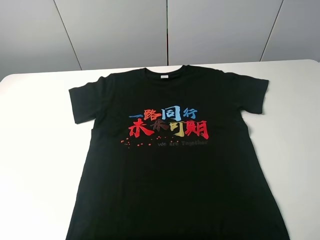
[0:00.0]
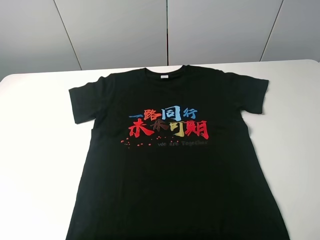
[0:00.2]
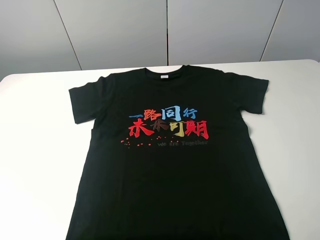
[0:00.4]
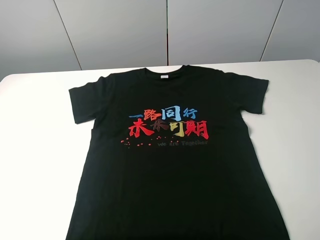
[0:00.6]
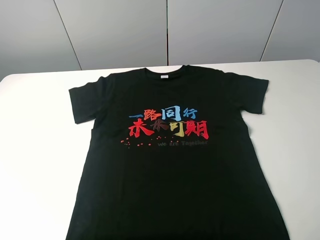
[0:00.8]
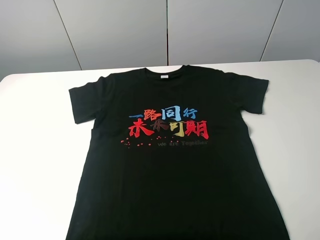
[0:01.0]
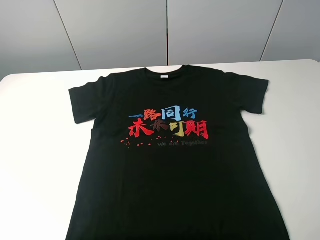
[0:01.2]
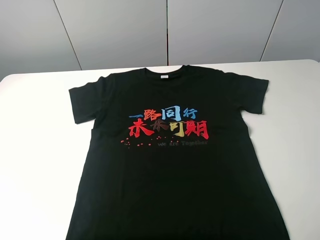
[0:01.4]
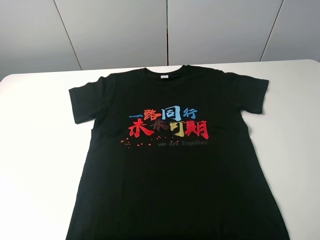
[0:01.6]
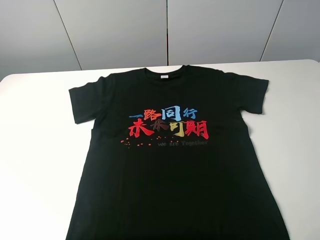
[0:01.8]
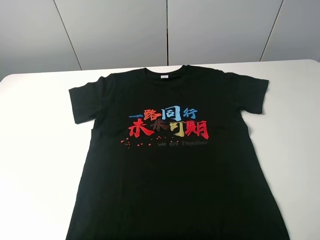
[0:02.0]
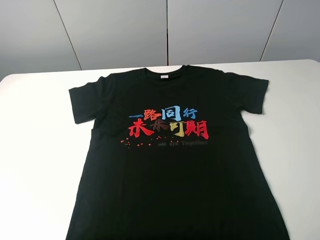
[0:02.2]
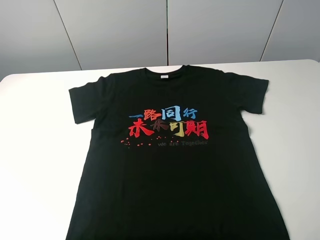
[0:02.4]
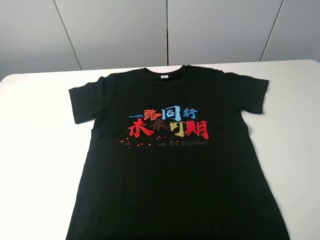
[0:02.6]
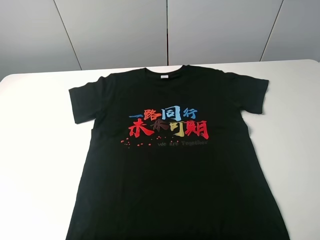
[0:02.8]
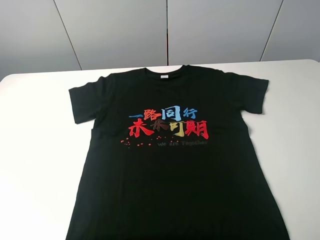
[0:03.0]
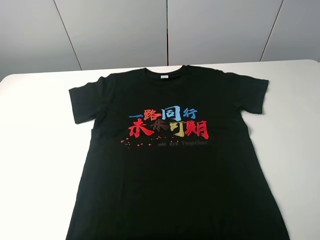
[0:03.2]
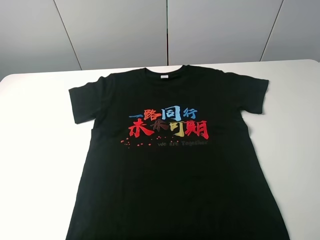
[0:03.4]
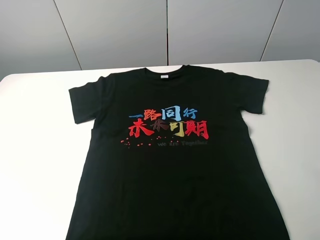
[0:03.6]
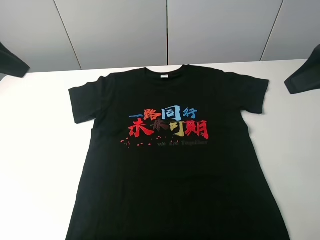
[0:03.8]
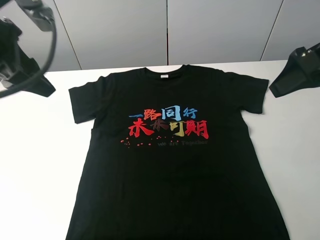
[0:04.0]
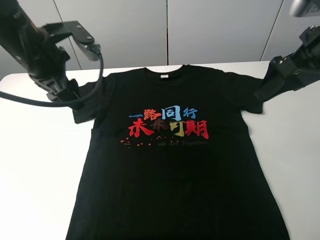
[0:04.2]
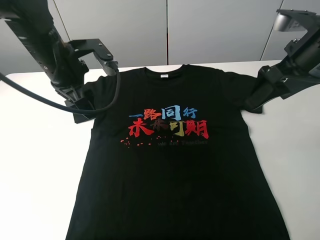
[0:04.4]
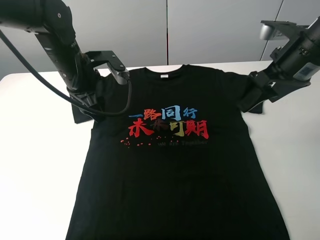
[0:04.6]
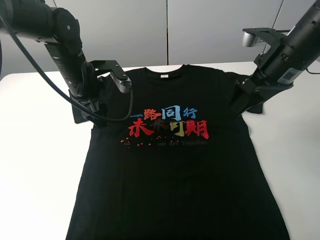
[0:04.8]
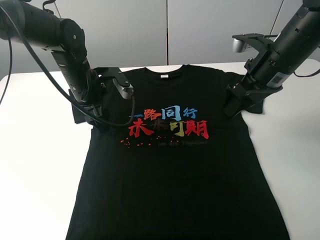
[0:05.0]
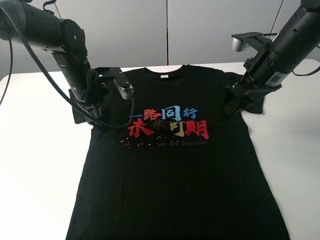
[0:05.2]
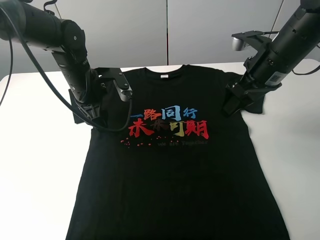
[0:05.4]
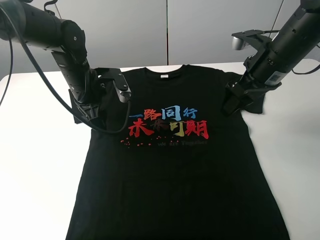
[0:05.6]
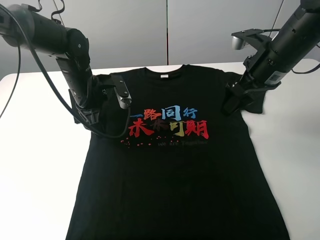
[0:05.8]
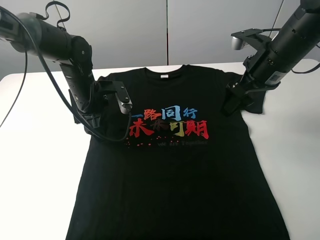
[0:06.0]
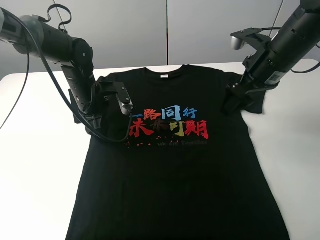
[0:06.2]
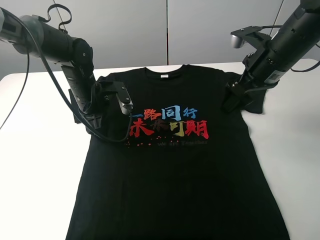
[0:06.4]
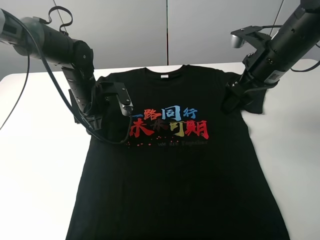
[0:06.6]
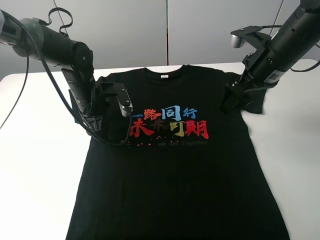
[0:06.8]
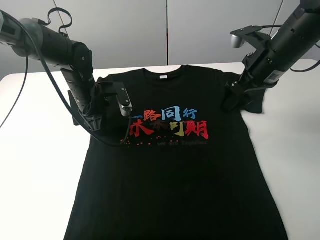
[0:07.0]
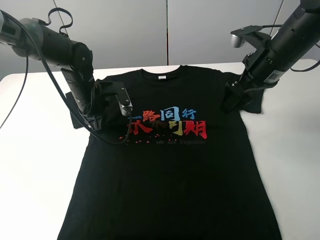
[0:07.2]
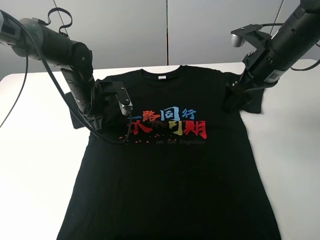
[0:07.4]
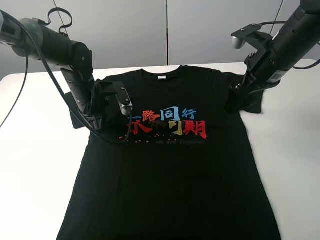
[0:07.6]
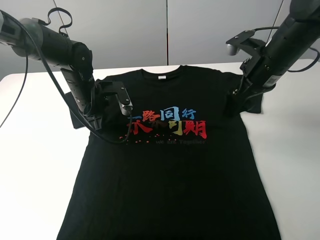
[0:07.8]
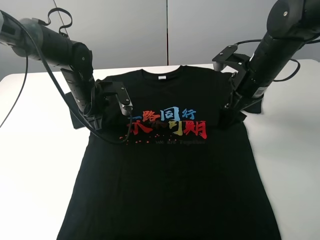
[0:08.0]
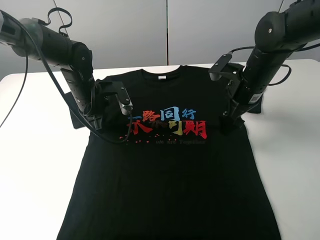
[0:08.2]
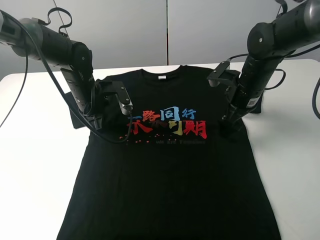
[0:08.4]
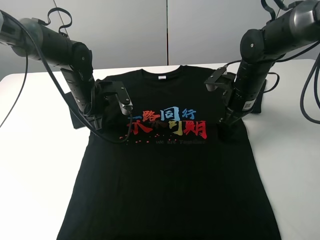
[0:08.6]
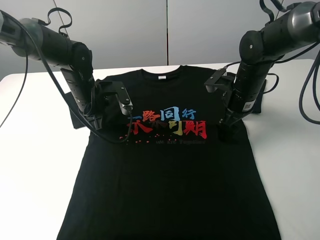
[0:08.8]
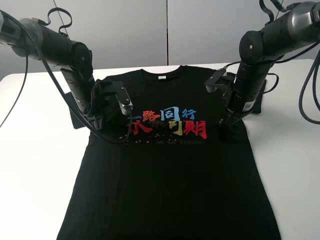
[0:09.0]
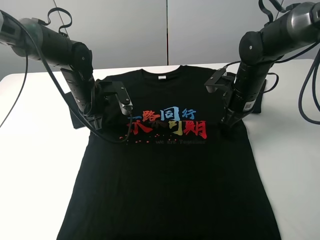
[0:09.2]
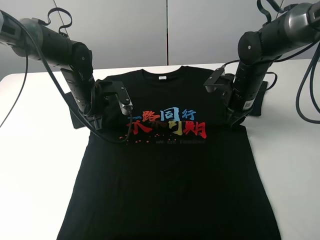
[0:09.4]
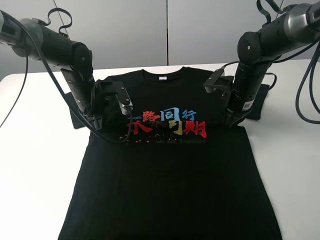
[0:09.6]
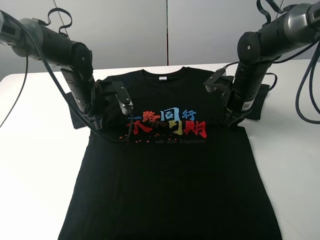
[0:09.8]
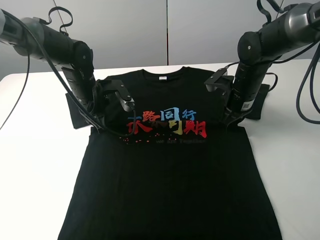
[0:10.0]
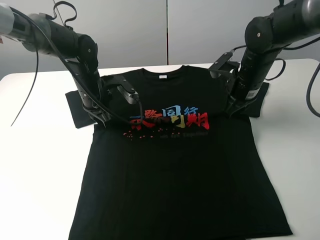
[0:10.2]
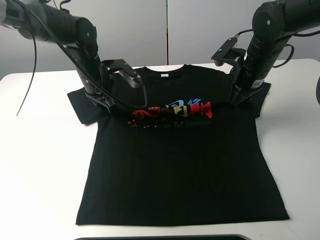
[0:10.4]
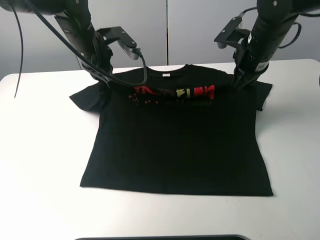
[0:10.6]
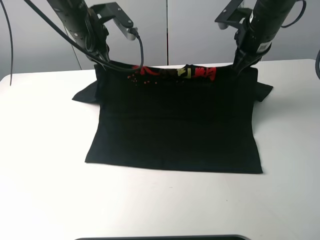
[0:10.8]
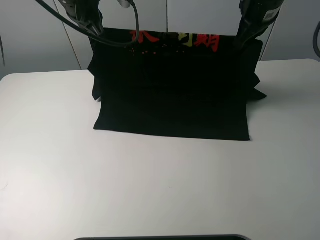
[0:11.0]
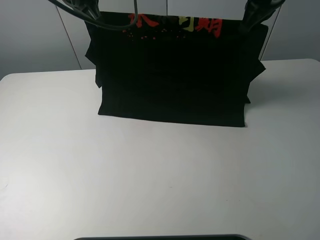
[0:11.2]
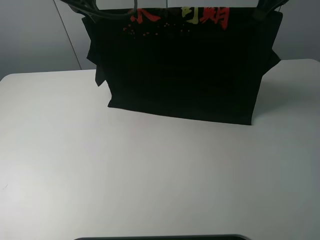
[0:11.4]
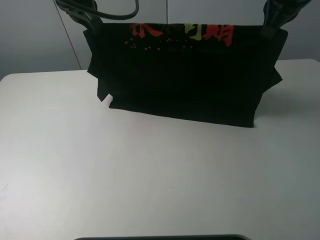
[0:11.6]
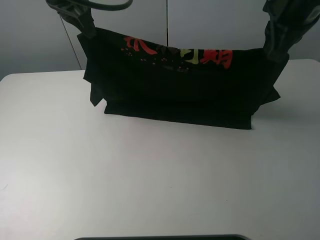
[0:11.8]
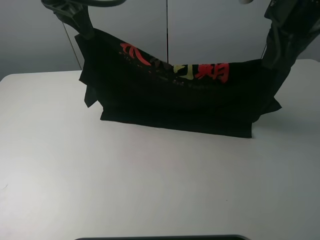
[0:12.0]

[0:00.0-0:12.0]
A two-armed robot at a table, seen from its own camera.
Task of the whole recording: fold the clothes on the table.
Step, 0.0 to 7.0 s: Lift the black T-shirt with the left gripper.
0.0 to 1.6 s: The two grippers keep their place.
3.0 to 4.4 s: The left gripper shifts some 35 cm forward, to the right and downward. The right gripper travels forward by roughly 25 cm.
4.4 to 6.0 s: The left gripper moves downward, some 10 cm; the right gripper changes place by about 5 cm.
6.0 to 7.6 s: The left gripper closes its fingers.
7.6 to 9.0 s: The right gripper moves downward, roughly 10 cm.
9.0 to 10.4 s: The two grippers go about 5 cm upward. The right gripper closes.
10.4 to 12.0 s: The left gripper heads upward, covering roughly 20 cm. The right gripper shifts some 20 cm upward and backward.

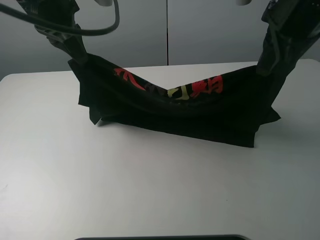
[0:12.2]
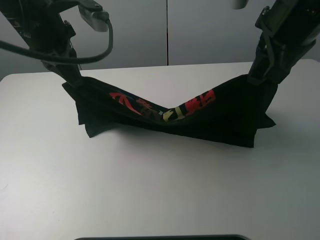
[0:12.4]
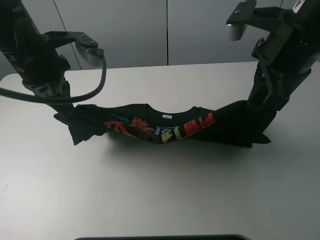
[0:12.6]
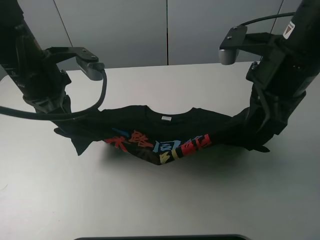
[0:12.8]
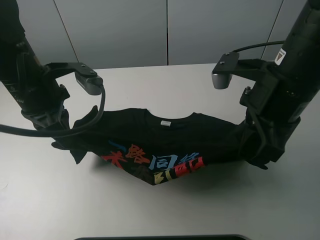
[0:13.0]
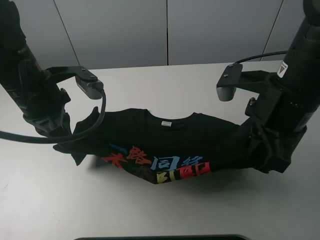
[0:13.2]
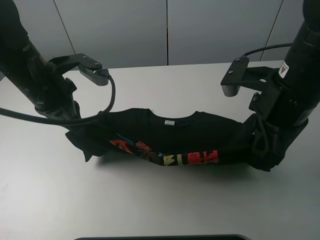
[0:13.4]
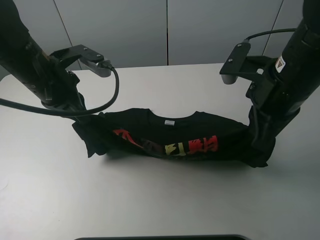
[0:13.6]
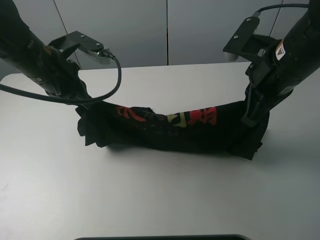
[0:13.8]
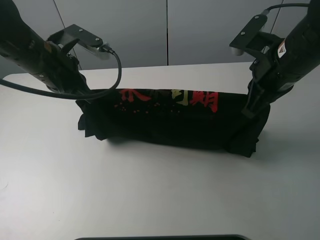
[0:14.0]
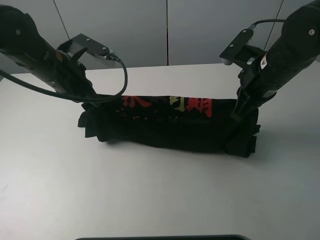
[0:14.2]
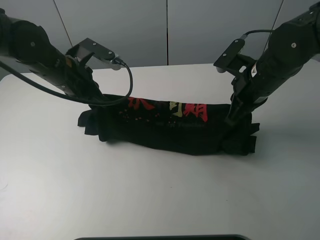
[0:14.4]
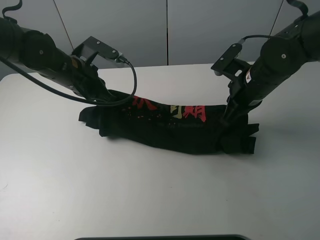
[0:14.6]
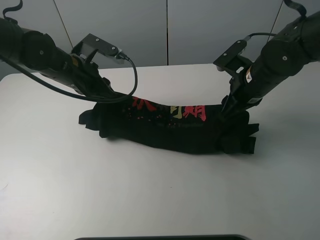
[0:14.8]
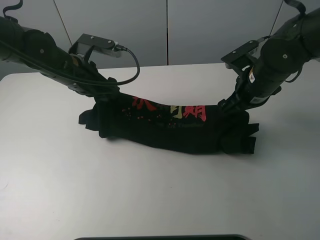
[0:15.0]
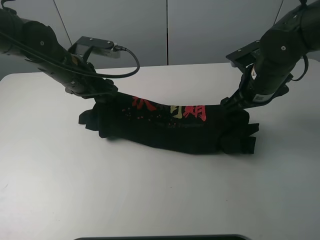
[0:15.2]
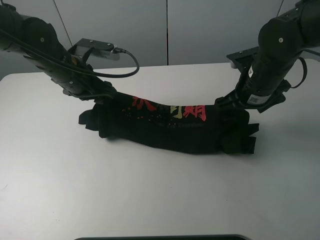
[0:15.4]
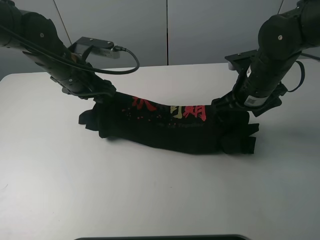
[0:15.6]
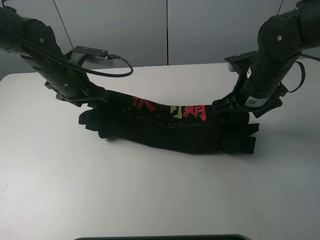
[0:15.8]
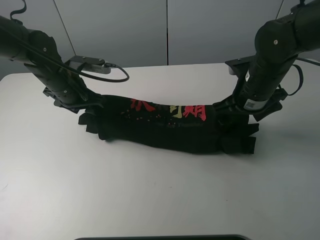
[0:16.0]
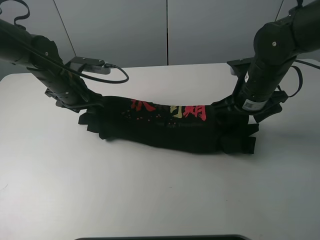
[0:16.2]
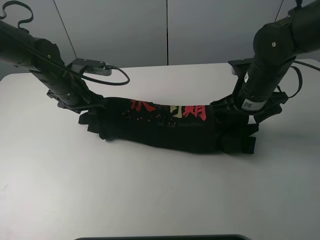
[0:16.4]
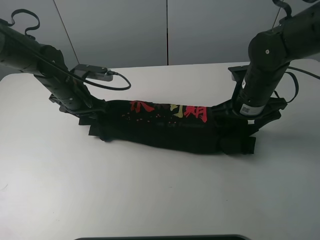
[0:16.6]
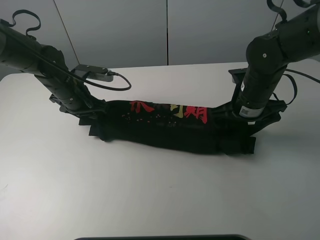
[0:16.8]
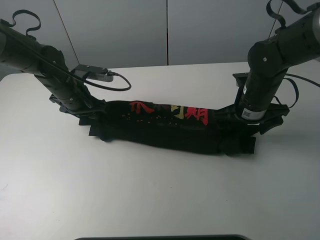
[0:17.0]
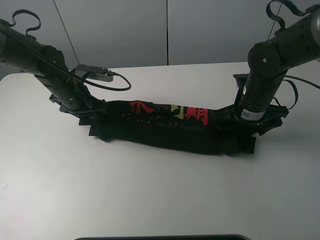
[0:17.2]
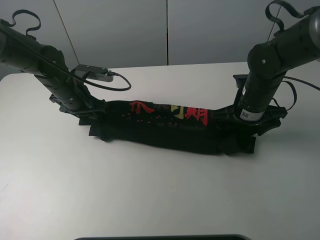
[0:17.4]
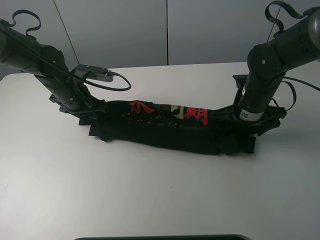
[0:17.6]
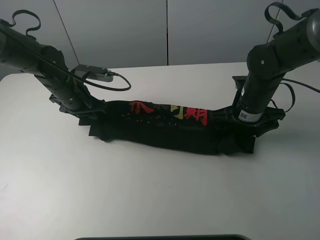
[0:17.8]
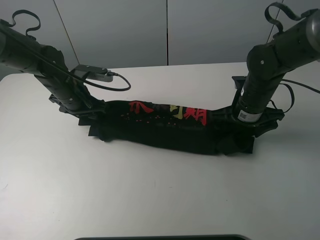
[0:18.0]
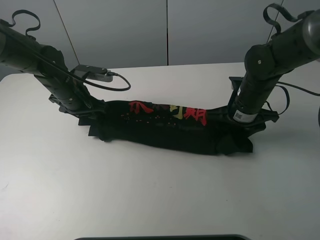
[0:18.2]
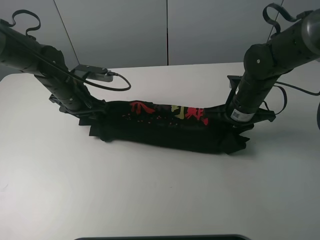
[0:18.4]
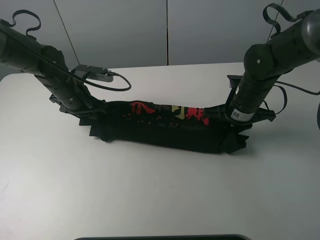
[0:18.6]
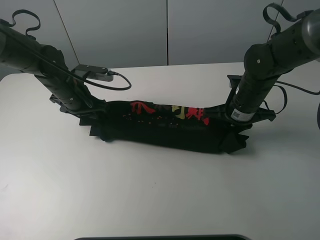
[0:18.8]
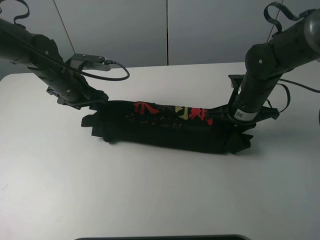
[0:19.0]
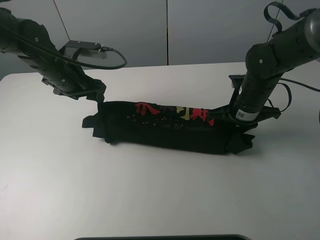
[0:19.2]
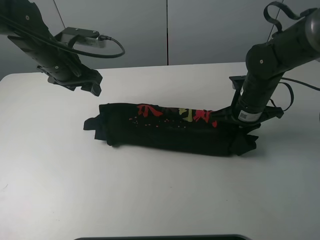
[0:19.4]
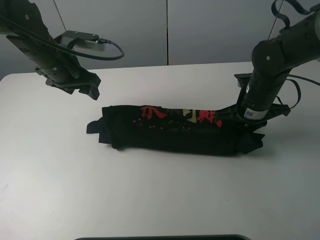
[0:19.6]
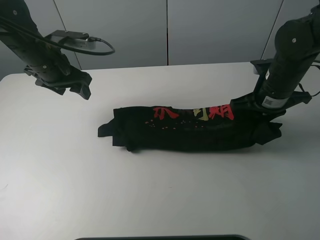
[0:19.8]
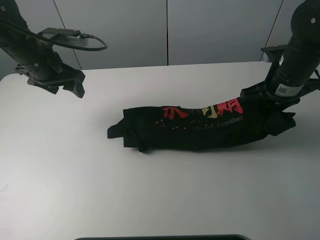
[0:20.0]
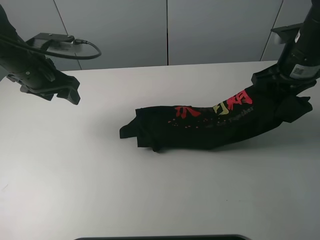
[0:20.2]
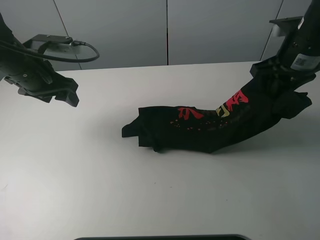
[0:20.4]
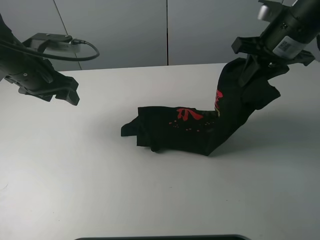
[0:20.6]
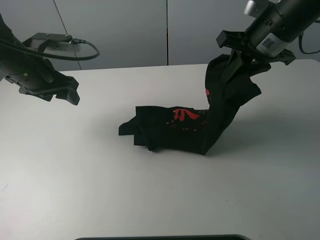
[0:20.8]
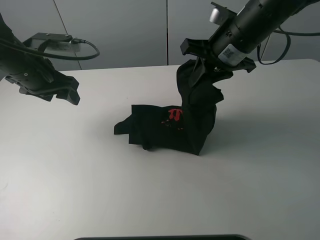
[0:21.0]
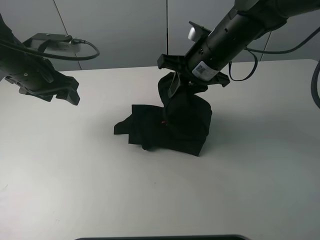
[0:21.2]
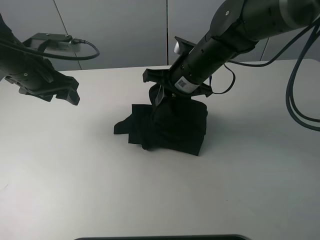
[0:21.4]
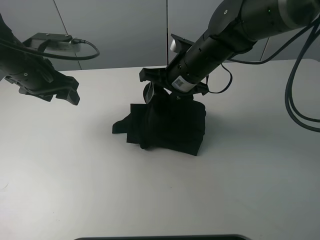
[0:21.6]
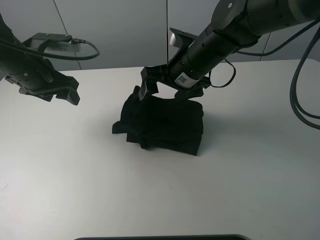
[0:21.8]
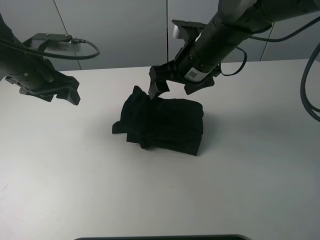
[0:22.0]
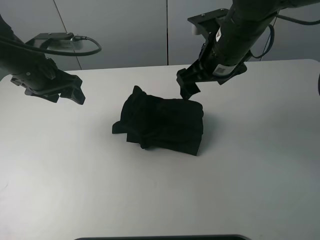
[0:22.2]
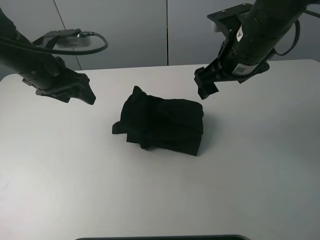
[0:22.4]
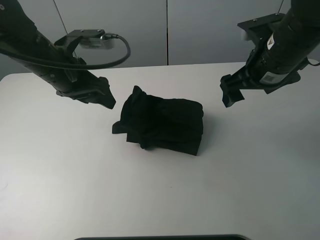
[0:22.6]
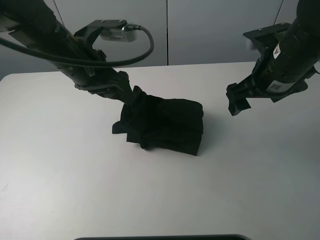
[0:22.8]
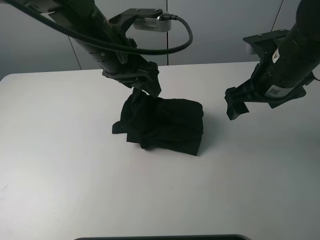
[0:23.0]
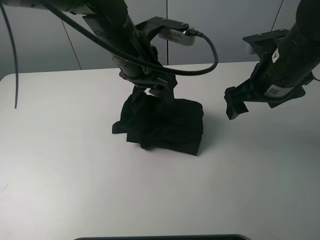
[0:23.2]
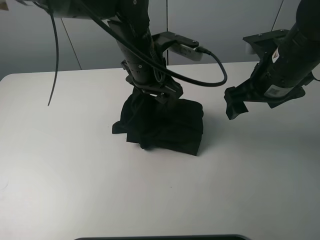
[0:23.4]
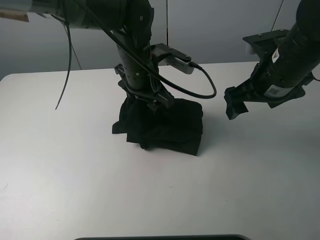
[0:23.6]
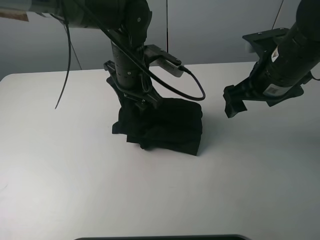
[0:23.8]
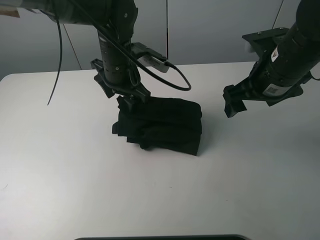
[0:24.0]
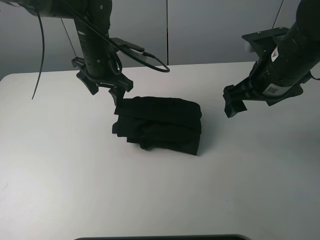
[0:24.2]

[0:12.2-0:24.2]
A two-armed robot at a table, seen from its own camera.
Task of the whole recording: fold the clothes on the table.
Step, 12.2 to 15.0 s: Fold the black T-shirt downward with the right gripper.
Step, 15.2 to 18.6 s: Grasp the black T-shirt with the right gripper.
Step, 18.8 to 22.0 s: Fold the black T-shirt from right to left with right gripper.
12.2 to 13.8 s: The two grippers go about 10 cm downward.
13.8 to 15.2 s: The left gripper ends up roughly 5 cm from where it was, and opens up; the right gripper shifts some 10 cm downward and forward, and opens up.
15.2 to 16.6 s: The left gripper travels downward by about 5 cm.
16.6 to 18.2 s: The right gripper closes its fingers.
18.2 to 19.8 s: The left gripper shifts about 10 cm upward. Meanwhile the right gripper travels upward by approximately 5 cm, and closes.
19.8 to 21.2 s: The right gripper is displaced to the left by about 15 cm.
21.2 to 22.6 s: Both grippers move to the right, about 10 cm. The right gripper opens up.
22.6 to 24.2 s: The left gripper is displaced forward and to the right by about 10 cm.
